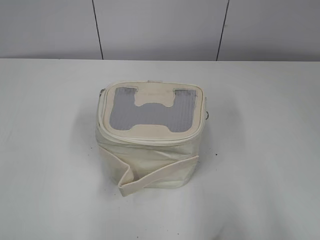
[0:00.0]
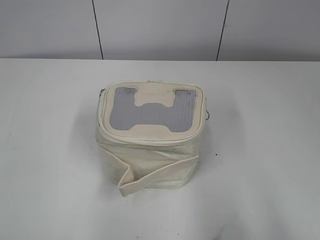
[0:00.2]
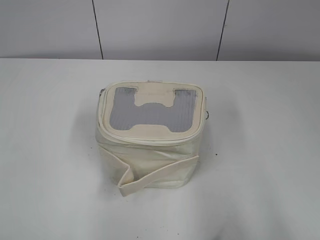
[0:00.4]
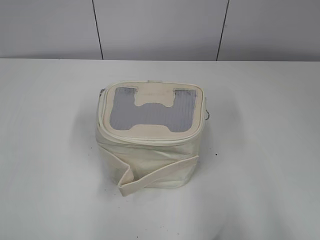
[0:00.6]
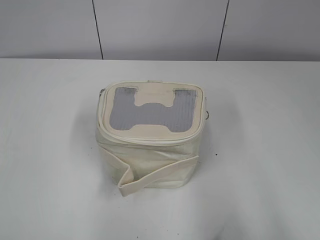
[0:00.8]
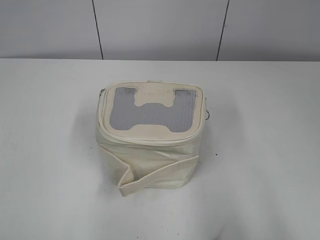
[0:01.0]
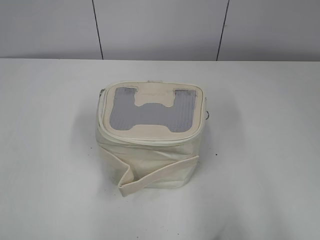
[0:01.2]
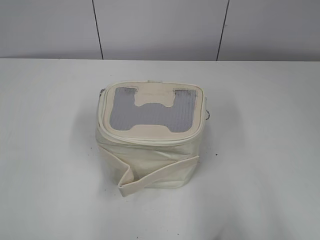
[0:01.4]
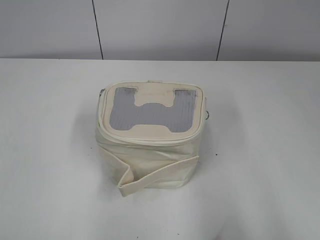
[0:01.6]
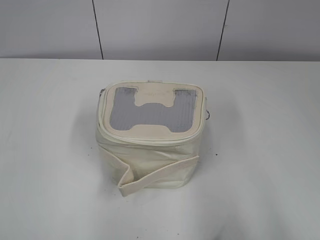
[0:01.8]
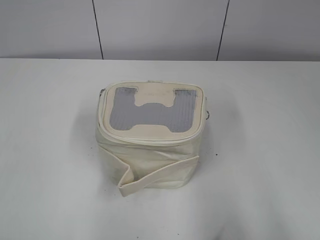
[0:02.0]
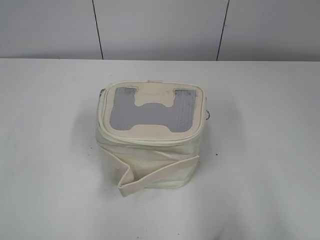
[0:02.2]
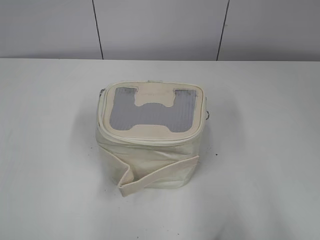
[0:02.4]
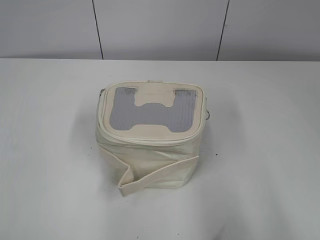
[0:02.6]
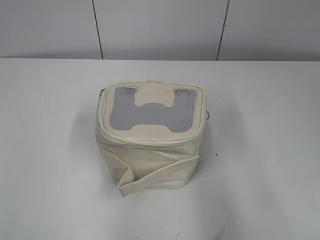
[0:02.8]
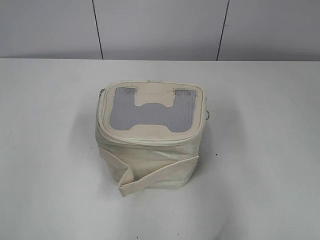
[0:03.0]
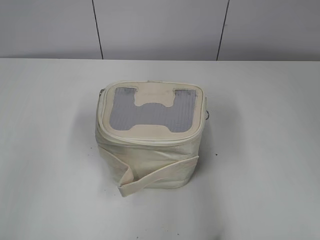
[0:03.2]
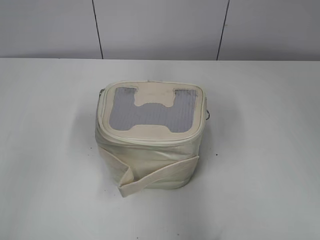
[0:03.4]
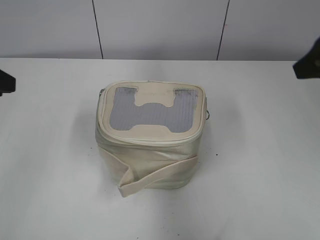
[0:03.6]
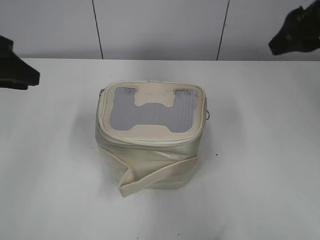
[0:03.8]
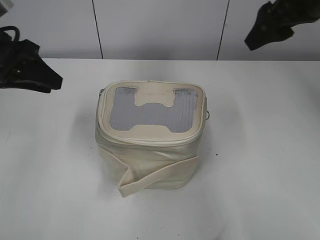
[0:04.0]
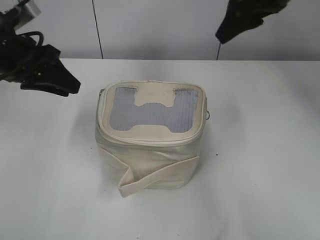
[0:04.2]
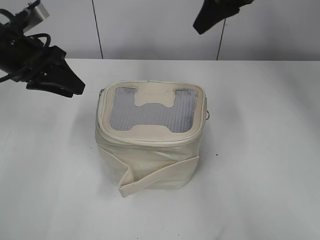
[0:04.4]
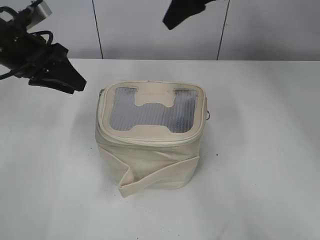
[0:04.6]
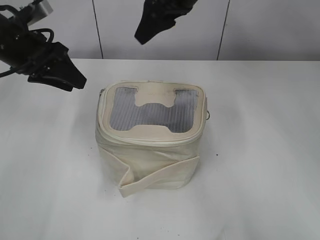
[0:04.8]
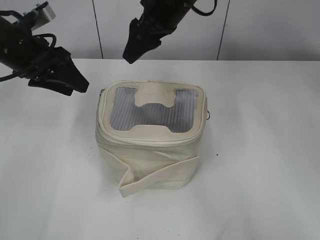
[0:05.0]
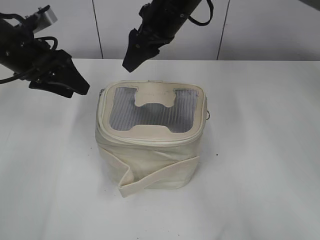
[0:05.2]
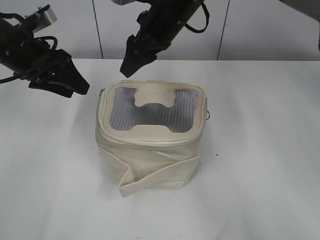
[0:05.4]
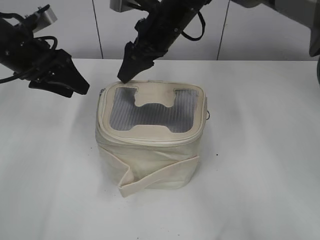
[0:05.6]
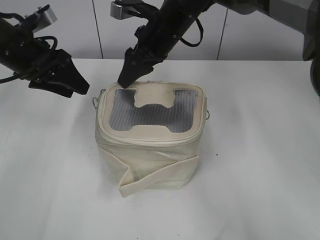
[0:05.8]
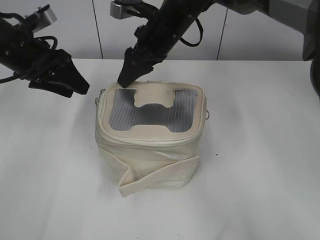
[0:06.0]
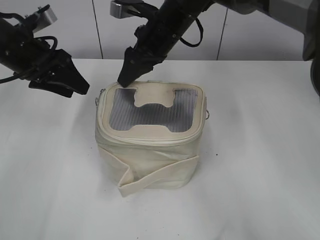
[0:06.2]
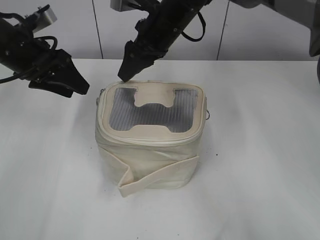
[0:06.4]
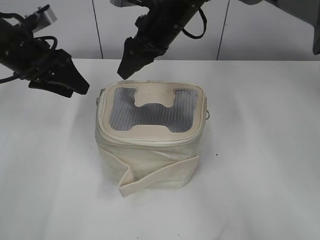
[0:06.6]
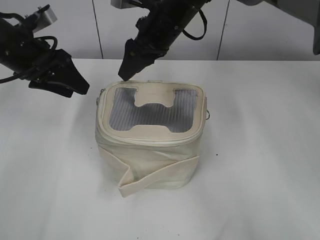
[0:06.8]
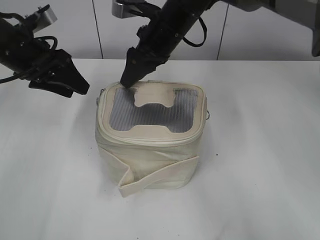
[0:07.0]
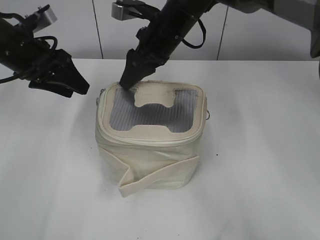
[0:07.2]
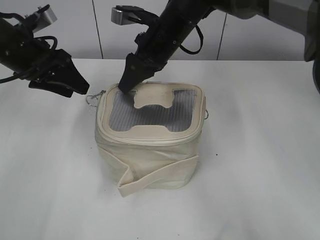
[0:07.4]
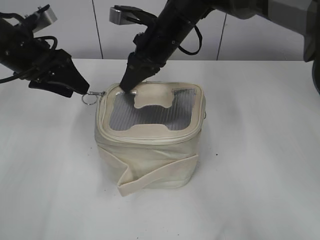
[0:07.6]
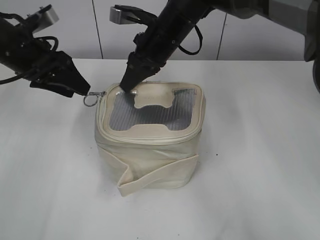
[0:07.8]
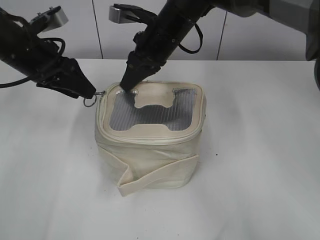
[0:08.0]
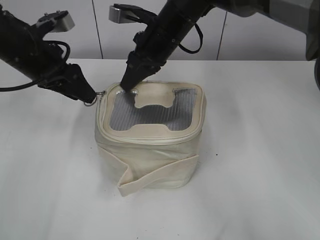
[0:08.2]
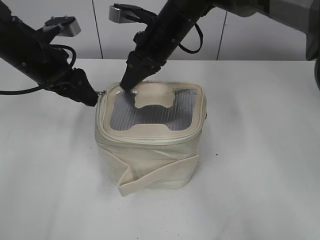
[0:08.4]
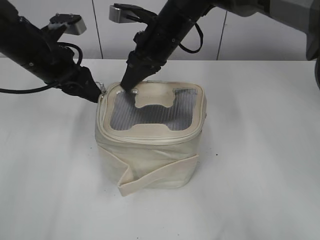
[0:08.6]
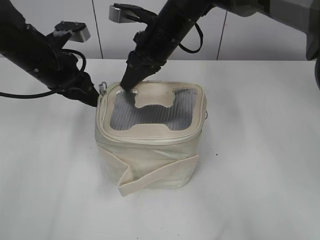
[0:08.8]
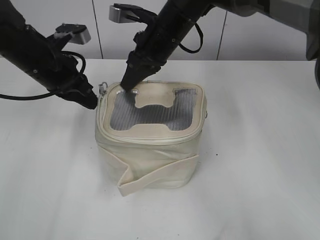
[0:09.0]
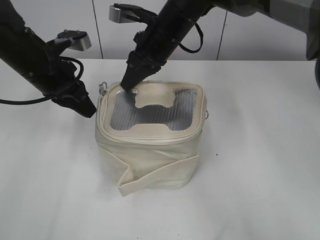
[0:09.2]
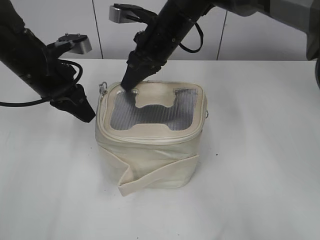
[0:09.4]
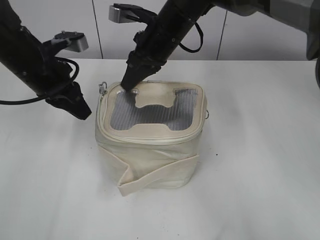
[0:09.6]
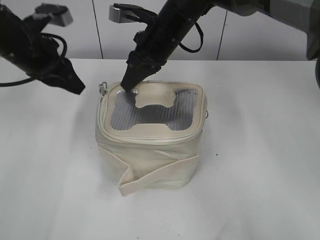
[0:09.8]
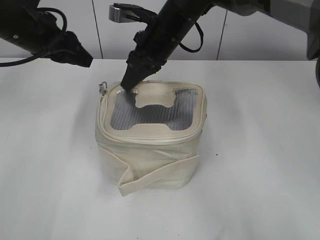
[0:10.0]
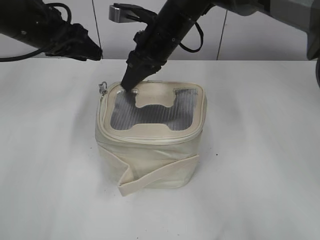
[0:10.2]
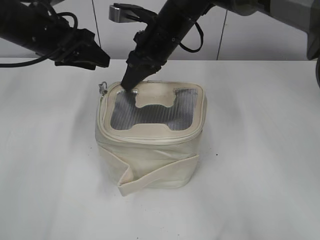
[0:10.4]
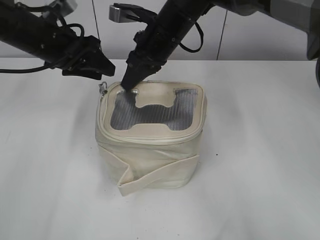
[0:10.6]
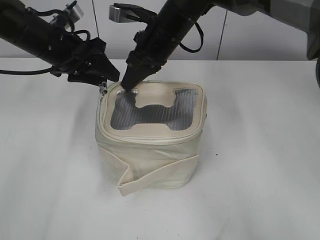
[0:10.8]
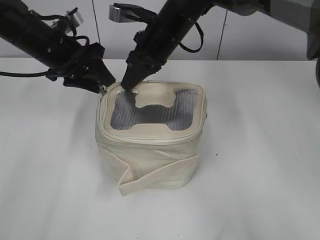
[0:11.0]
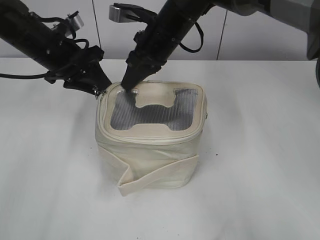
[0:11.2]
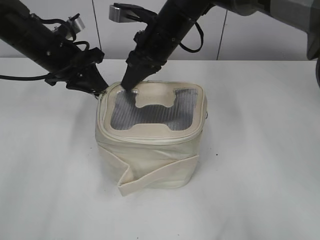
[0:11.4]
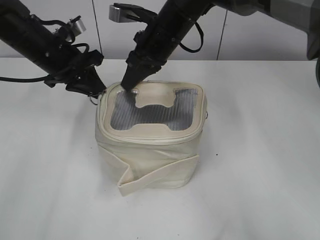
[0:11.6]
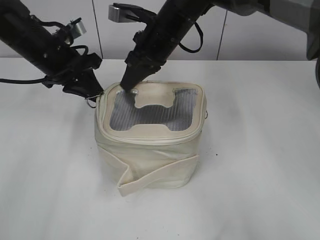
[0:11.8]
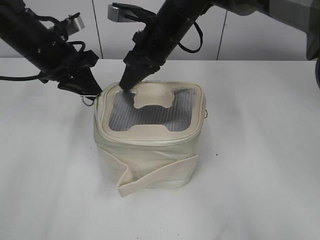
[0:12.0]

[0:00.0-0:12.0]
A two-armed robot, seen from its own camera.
0:01.6 to 0:03.0: The grippers both shift forward by about 10 cm.
0:03.0 to 0:04.4: The right gripper heads forward and to the left, covering about 35 cm. The left gripper moves forward, about 25 cm.
0:04.4 to 0:06.0: The right gripper is displaced to the left and downward by some 15 cm.
0:06.0 to 0:07.6: The right gripper closes up.
0:07.6 to 0:09.0: The left gripper closes its fingers.
0:09.0 to 0:10.4: The left gripper opens up.
0:10.4 to 0:12.0: The left gripper closes.

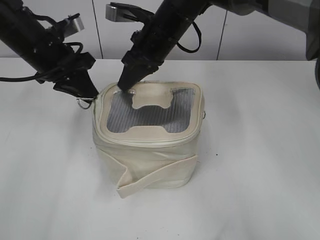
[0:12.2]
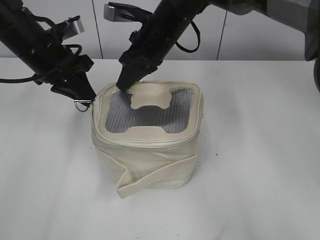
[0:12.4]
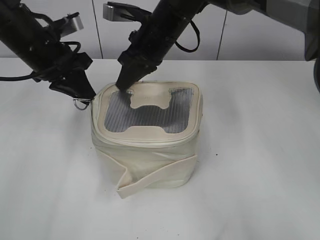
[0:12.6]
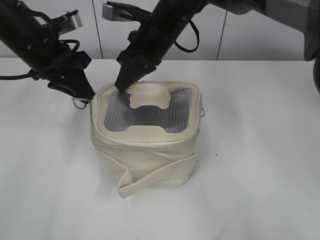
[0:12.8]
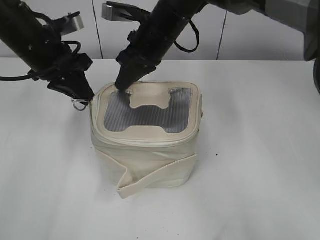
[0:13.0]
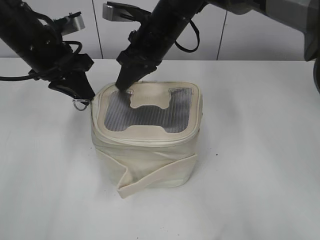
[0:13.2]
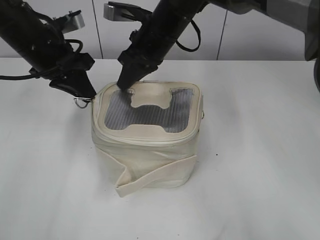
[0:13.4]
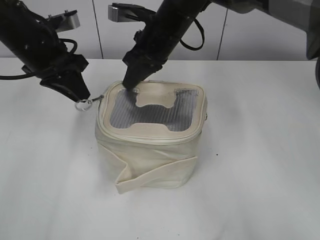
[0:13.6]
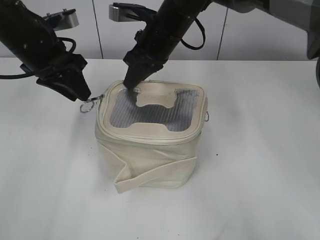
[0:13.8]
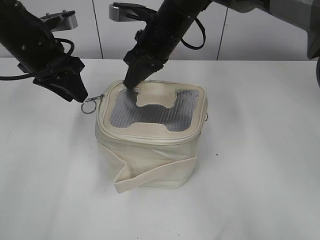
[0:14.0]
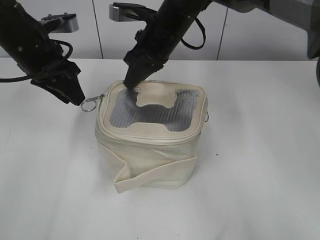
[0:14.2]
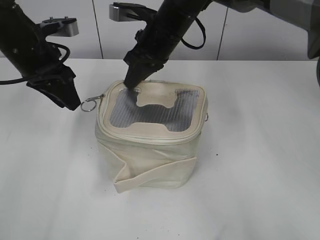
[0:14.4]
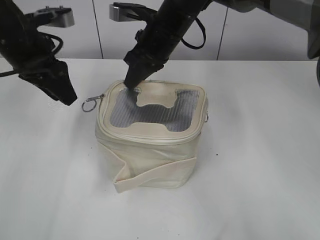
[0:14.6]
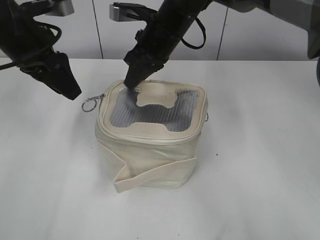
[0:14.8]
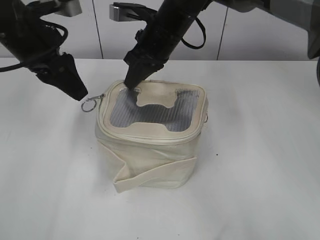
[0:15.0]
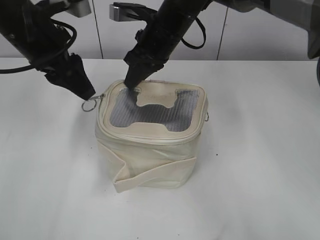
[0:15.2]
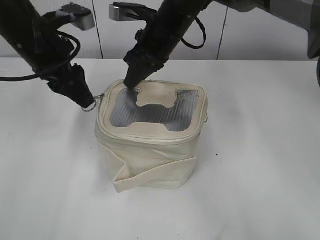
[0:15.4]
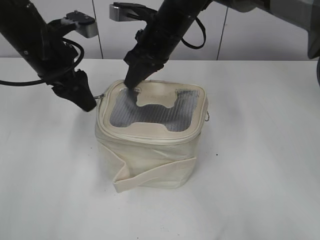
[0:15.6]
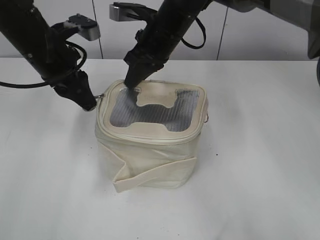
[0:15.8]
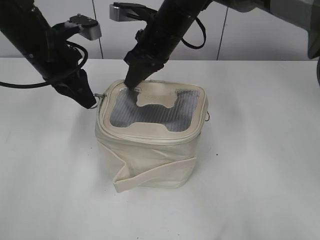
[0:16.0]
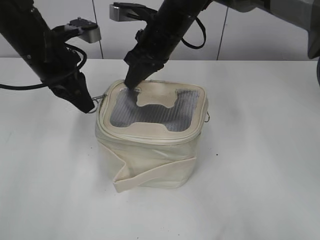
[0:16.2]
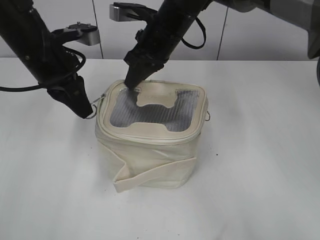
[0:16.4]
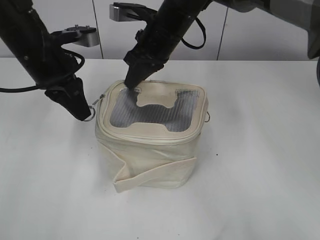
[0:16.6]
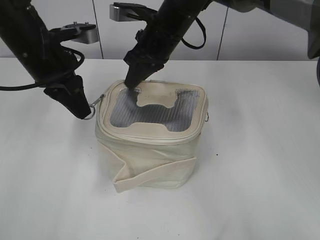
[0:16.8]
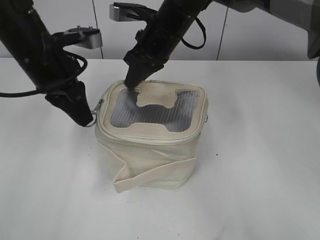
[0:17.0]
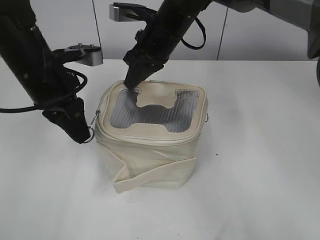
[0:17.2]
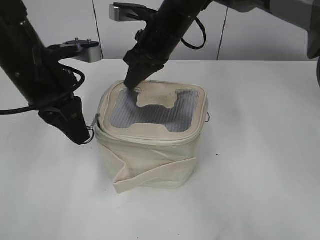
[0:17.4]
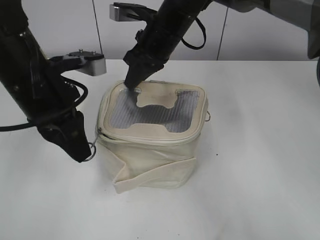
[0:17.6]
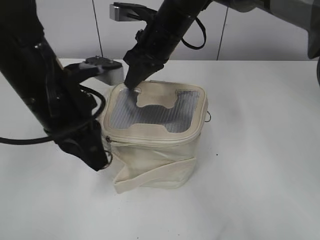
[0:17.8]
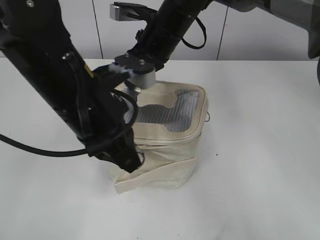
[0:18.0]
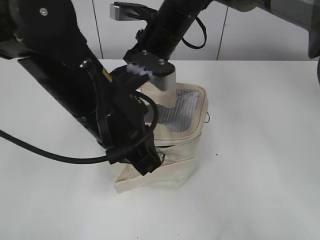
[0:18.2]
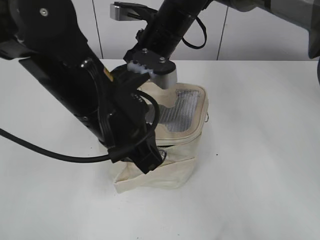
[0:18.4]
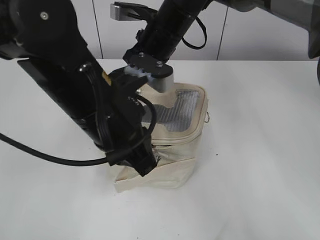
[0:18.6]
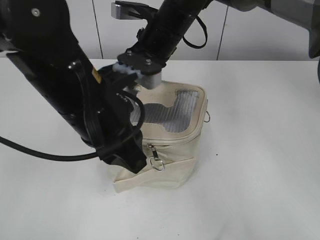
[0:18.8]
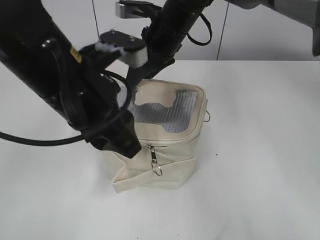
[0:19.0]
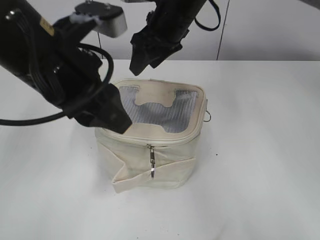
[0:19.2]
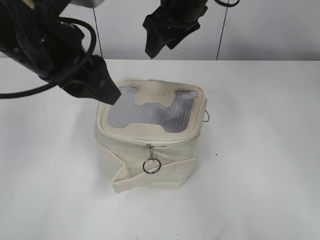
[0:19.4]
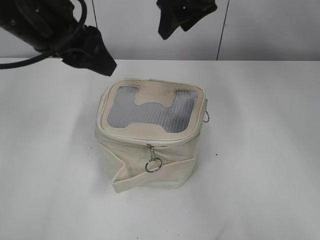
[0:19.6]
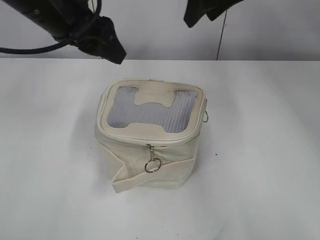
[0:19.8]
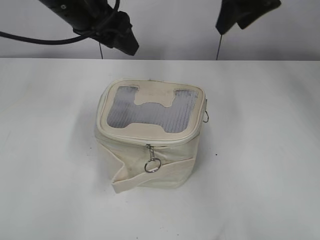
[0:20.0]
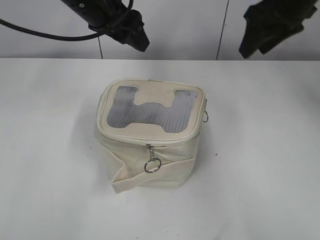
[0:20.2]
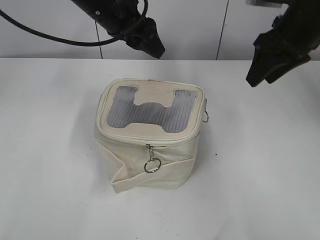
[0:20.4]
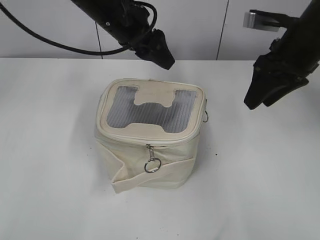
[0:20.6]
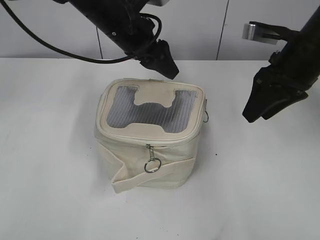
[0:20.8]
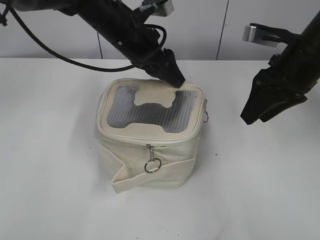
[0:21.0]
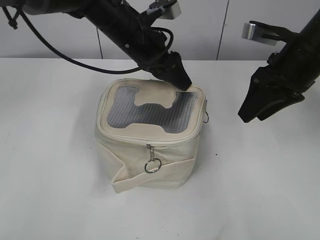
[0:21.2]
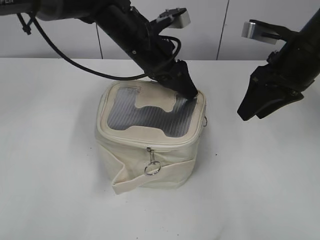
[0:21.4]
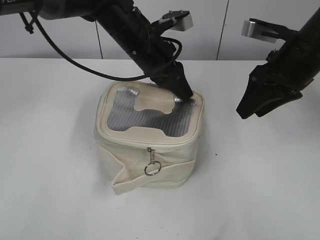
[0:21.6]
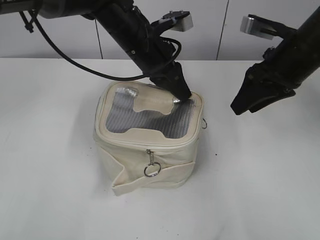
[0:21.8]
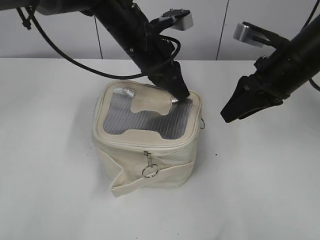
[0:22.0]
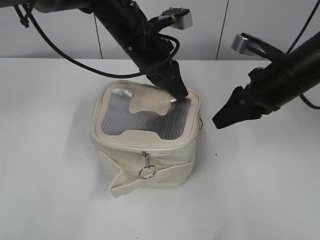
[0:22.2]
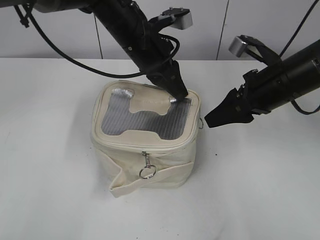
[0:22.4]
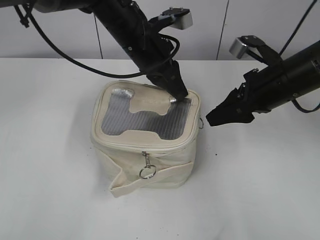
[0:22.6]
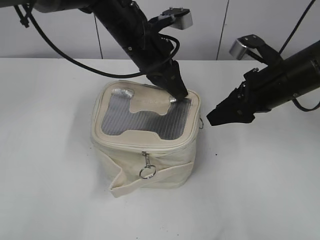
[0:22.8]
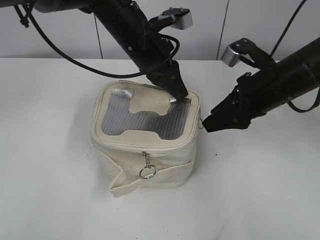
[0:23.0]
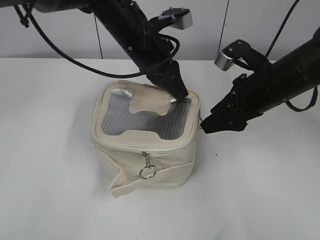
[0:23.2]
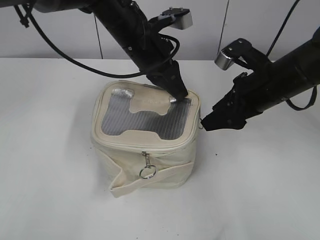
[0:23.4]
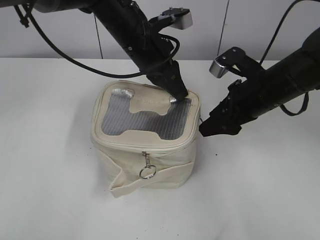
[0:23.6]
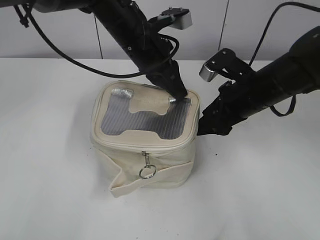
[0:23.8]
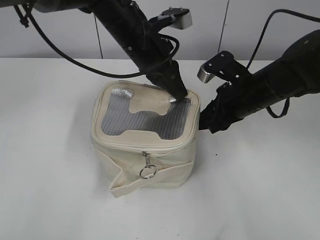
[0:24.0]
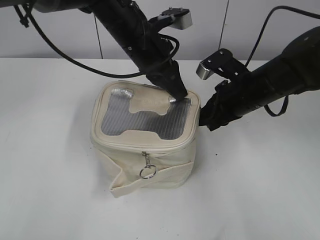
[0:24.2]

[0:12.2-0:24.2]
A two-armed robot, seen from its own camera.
Step, 0:12.2 to 0:18.6: Zip up the bag with your left hand.
Step, 0:18.8 to 0:19.0: Hold the bag with your right hand.
0:12.2 to 0:13.8: The left gripper opens up.
0:13.8 to 0:15.2: The left gripper opens up.
0:15.2 to 0:16.6: The left gripper closes up.
0:16.6 to 0:18.2: The left gripper shifts about 15 cm backward and to the right.
0:18.2 to 0:19.8: The left gripper shifts approximately 15 cm forward, upward and to the left, and opens up. Meanwhile the right gripper travels upward and to the right by about 15 cm, and opens its fingers.
0:19.8 to 0:21.2: The left gripper is displaced to the right, downward and forward by roughly 15 cm. Meanwhile the right gripper goes about 15 cm downward, to the right and backward.
0:21.2 to 0:22.6: The left gripper closes up, while the right gripper ends up about 5 cm from where it was.
0:22.6 to 0:24.2: The right gripper shifts by some 5 cm, and closes its fingers.
